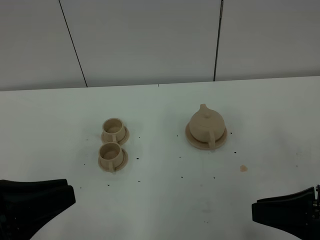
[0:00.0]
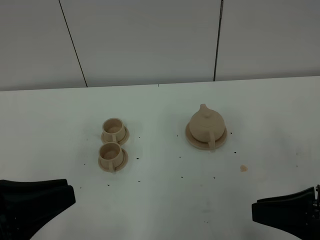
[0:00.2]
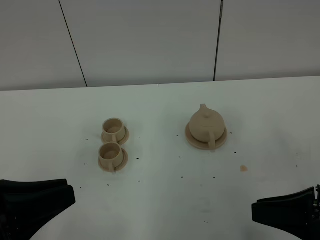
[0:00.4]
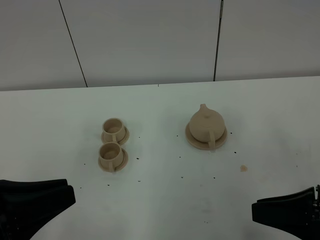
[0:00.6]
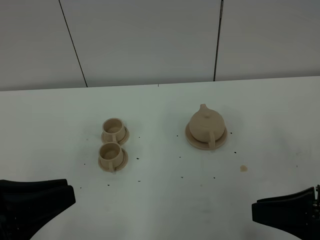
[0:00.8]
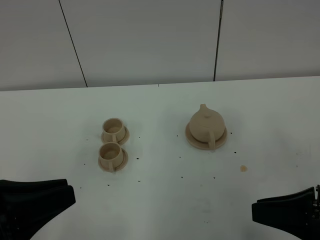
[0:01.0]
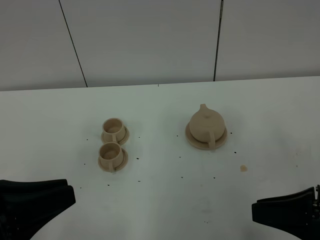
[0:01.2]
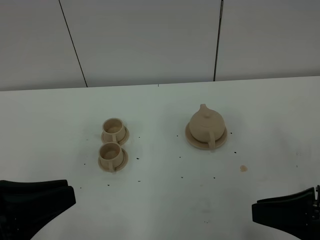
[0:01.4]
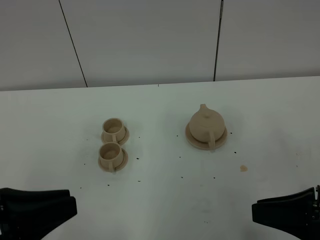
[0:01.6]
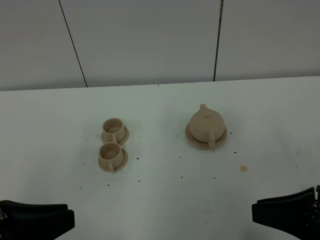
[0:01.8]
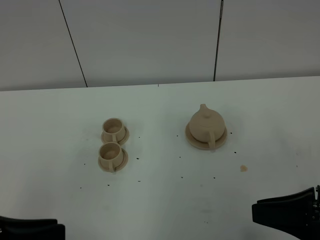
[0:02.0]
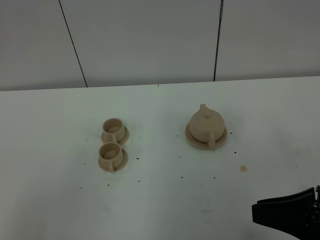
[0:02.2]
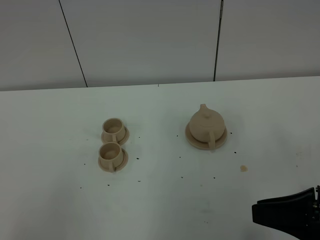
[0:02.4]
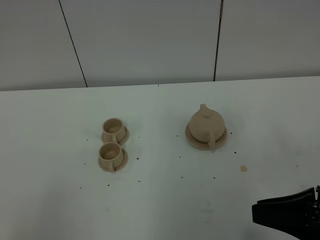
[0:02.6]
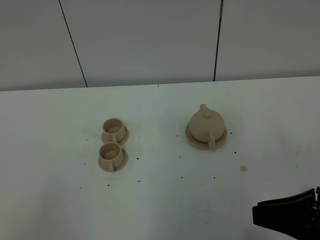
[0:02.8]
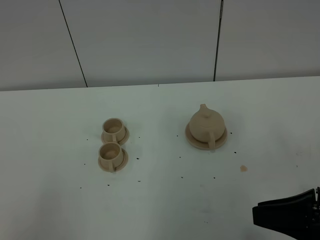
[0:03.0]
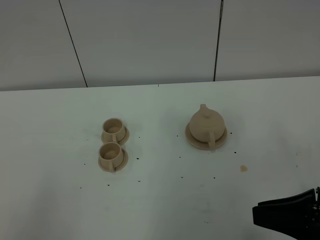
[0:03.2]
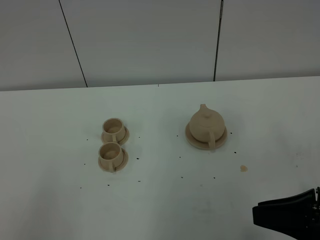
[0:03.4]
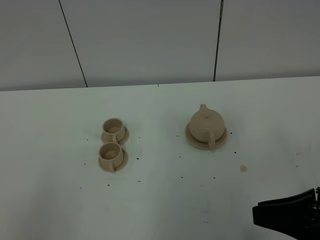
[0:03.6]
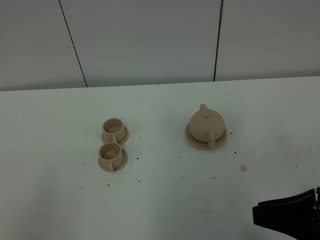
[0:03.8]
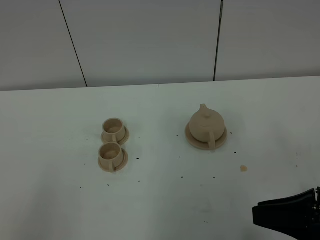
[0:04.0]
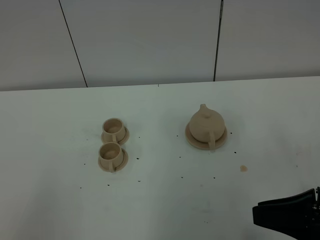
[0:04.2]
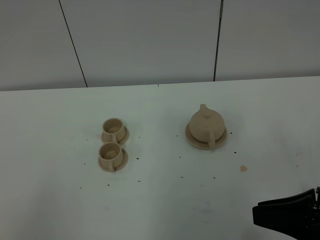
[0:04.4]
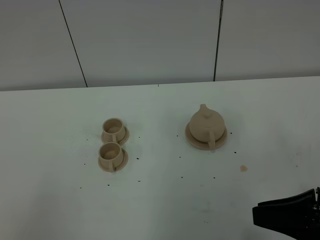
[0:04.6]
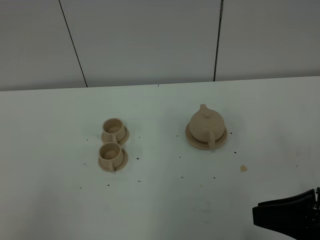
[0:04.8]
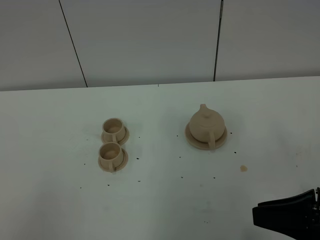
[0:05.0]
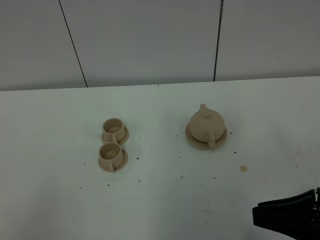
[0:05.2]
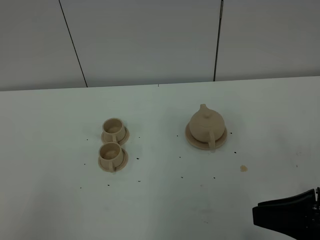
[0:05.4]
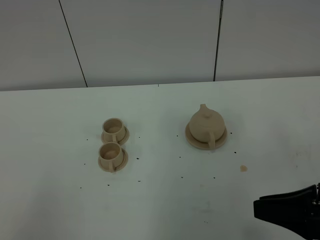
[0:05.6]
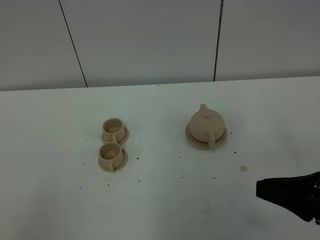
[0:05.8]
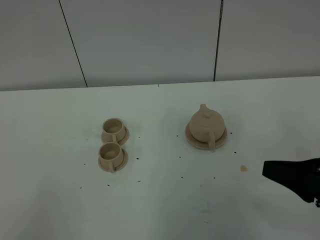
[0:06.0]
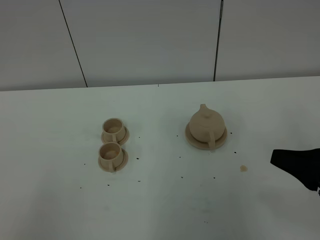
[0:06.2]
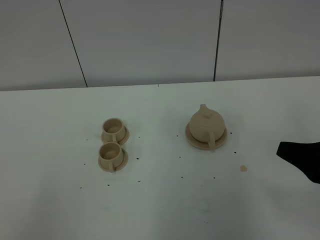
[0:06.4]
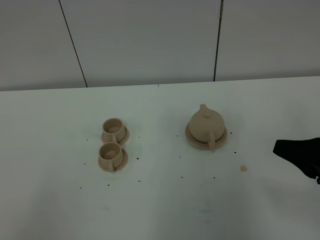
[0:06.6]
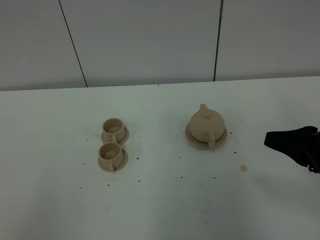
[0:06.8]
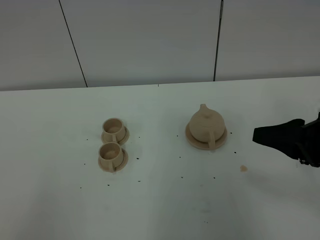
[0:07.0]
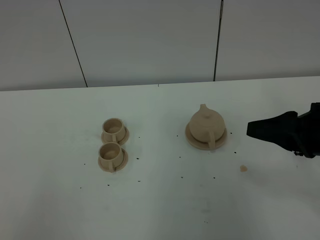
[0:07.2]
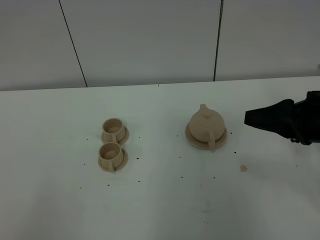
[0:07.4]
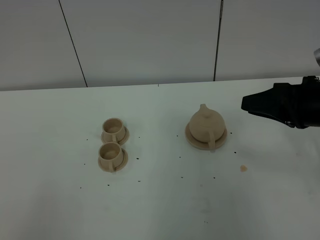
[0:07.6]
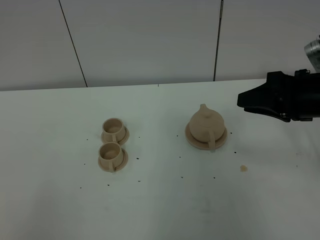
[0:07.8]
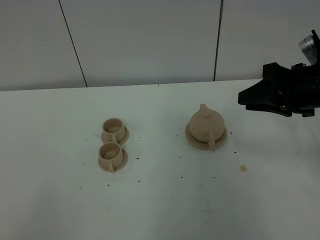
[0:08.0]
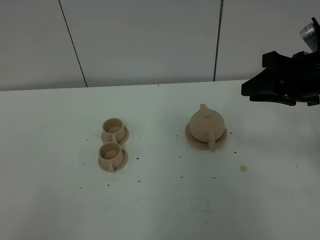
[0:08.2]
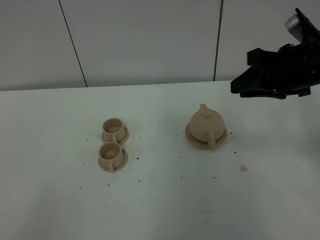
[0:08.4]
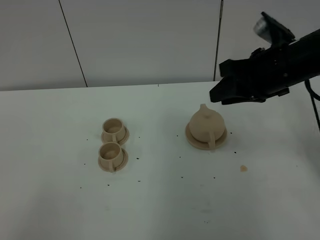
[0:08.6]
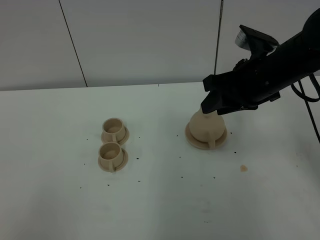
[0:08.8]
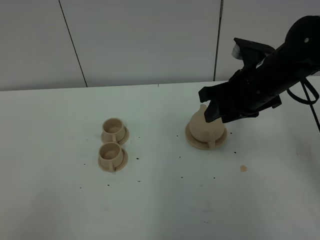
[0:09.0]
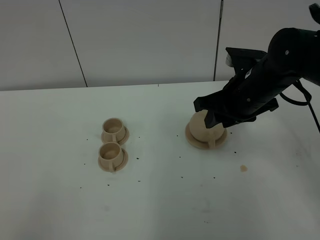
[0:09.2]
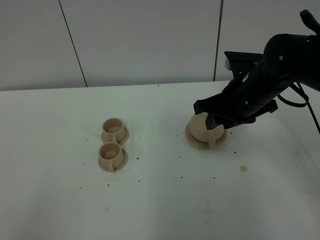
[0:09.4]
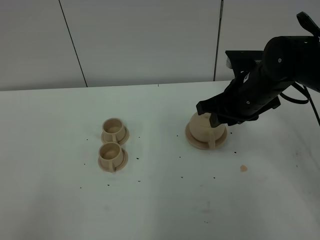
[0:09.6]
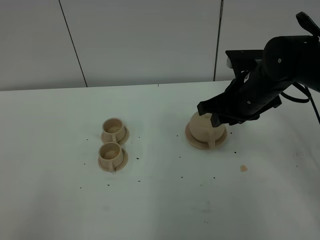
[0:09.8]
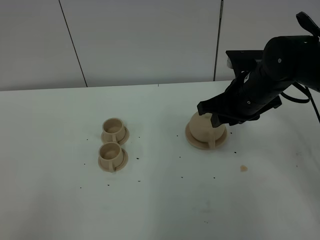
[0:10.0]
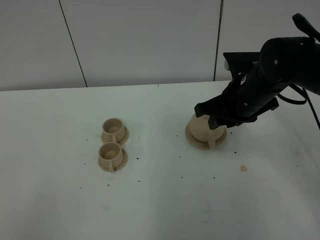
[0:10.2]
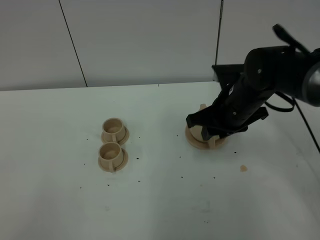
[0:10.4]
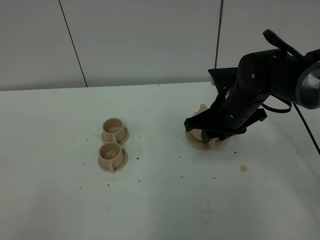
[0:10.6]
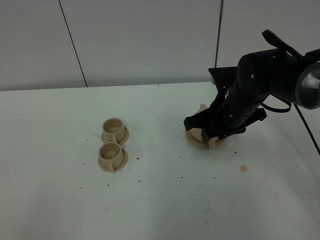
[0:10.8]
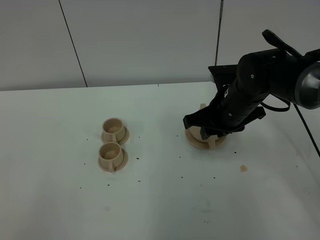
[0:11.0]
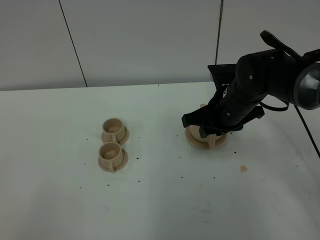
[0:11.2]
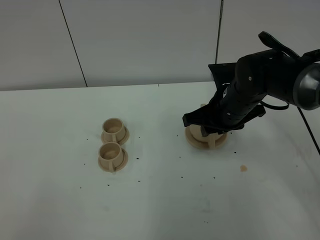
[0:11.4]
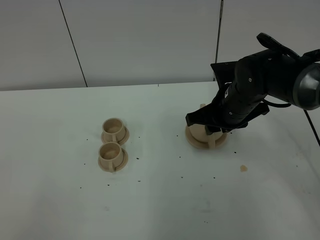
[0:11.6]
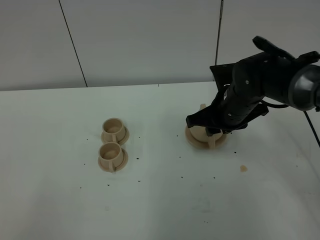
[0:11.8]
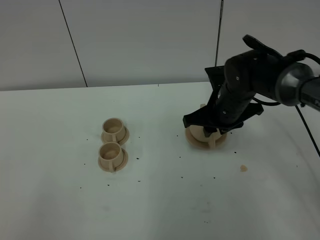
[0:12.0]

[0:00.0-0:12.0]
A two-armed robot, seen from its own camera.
Task of the whole recording: grasp the brown teapot and pour the tea into the two brown teacups one by one, put the brown teapot back in its original place.
0:00.0 to 0:01.6: Neither gripper changes place.
0:01.6 to 0:03.0: The left gripper heads backward, covering roughly 10 cm.
0:04.4 to 0:06.0: There are only small adjustments of the grippers.
0:06.0 to 0:07.6: The right gripper shifts roughly 15 cm forward.
0:07.6 to 0:09.0: The right gripper moves to the left and forward, roughly 10 cm.
0:09.0 to 0:10.4: The right gripper moves downward, approximately 5 cm.
0:10.4 to 0:12.0: The grippers make only small movements.

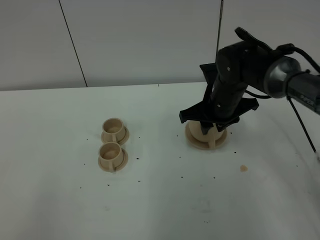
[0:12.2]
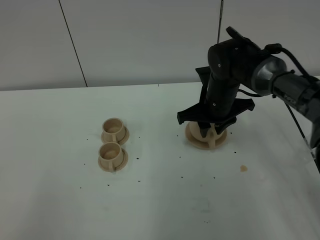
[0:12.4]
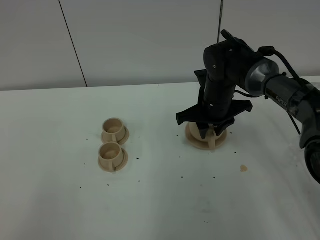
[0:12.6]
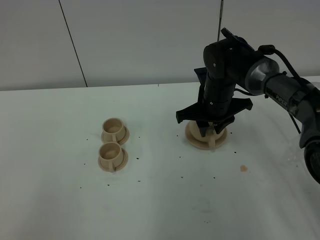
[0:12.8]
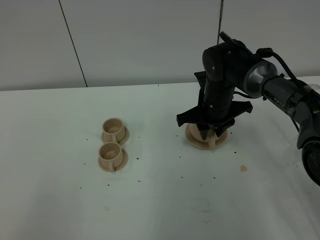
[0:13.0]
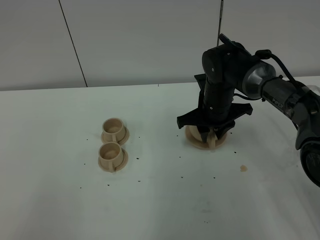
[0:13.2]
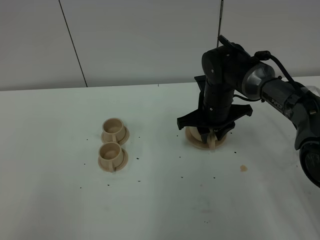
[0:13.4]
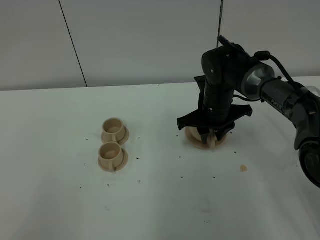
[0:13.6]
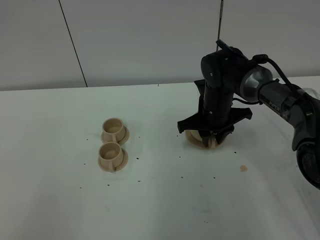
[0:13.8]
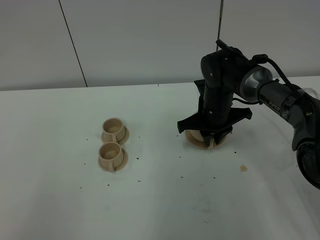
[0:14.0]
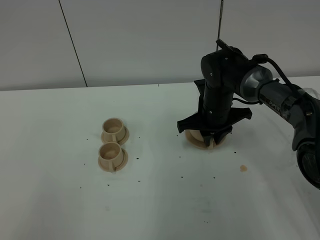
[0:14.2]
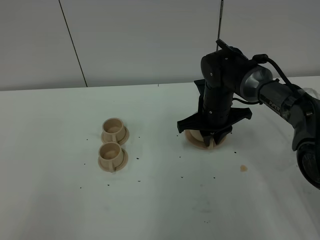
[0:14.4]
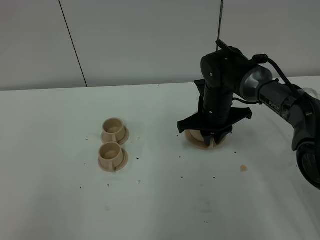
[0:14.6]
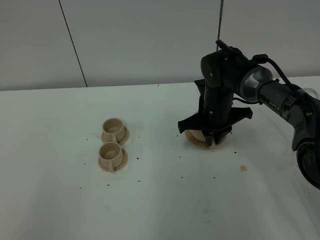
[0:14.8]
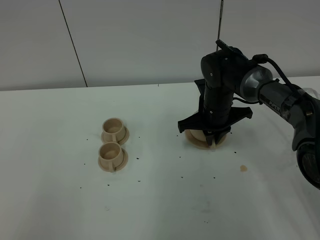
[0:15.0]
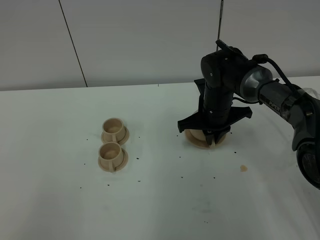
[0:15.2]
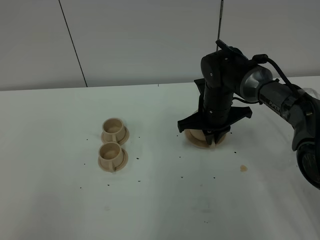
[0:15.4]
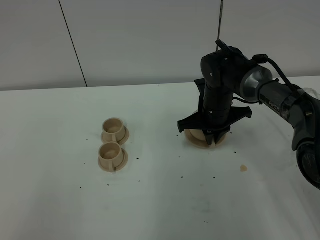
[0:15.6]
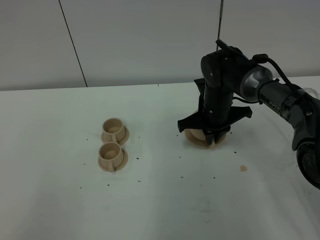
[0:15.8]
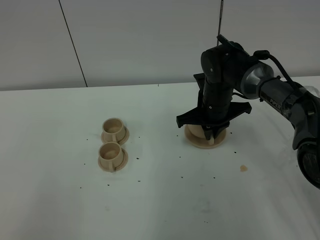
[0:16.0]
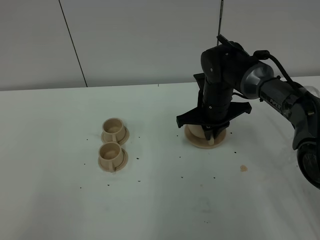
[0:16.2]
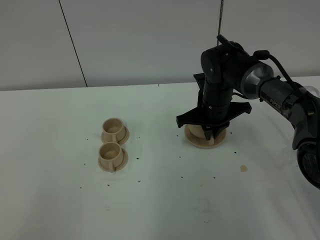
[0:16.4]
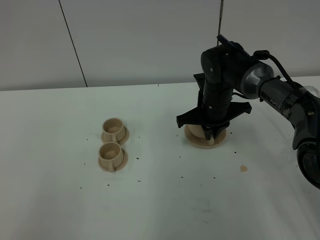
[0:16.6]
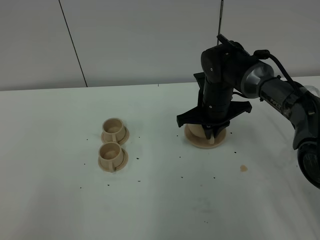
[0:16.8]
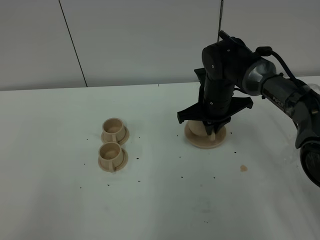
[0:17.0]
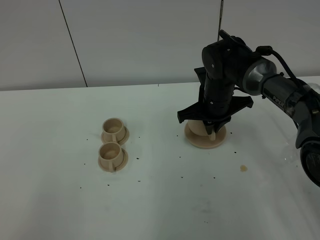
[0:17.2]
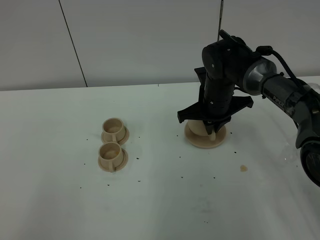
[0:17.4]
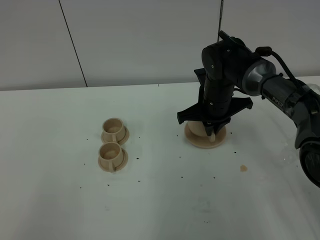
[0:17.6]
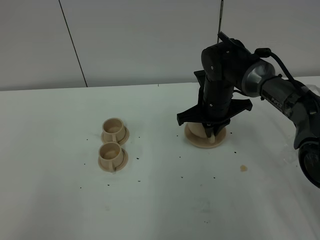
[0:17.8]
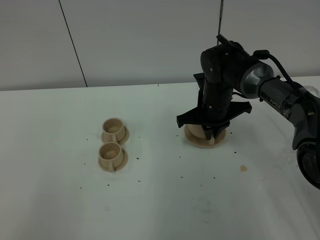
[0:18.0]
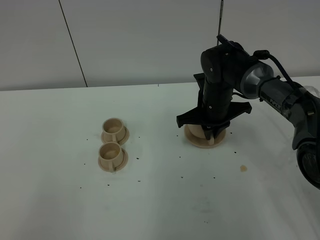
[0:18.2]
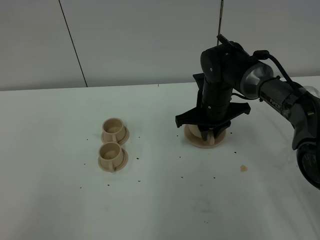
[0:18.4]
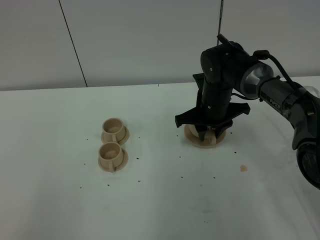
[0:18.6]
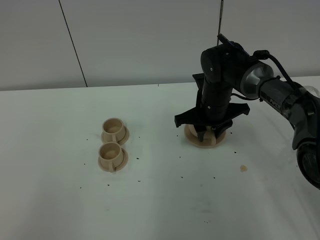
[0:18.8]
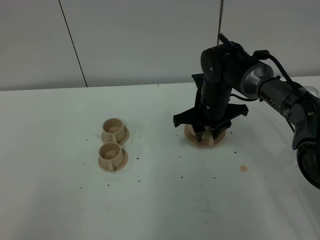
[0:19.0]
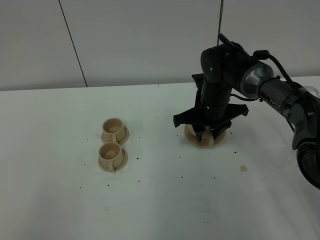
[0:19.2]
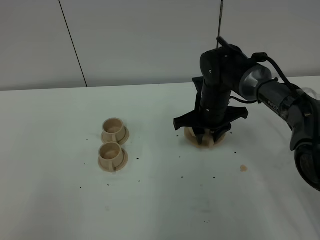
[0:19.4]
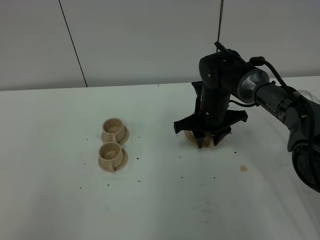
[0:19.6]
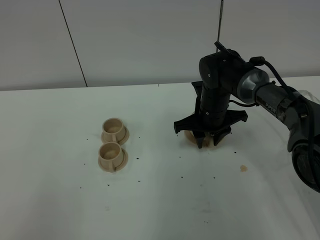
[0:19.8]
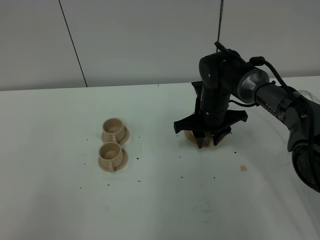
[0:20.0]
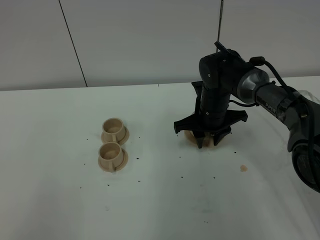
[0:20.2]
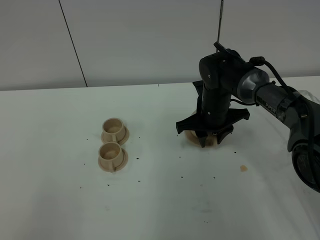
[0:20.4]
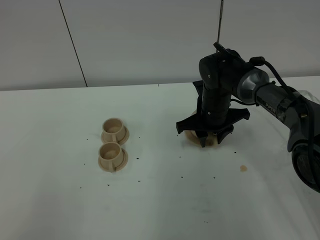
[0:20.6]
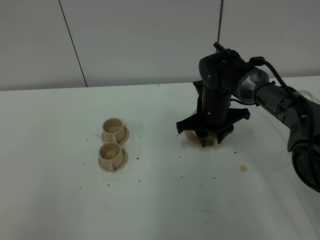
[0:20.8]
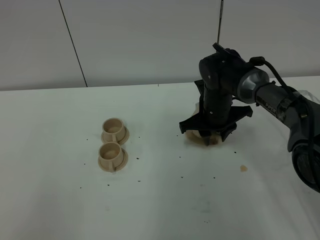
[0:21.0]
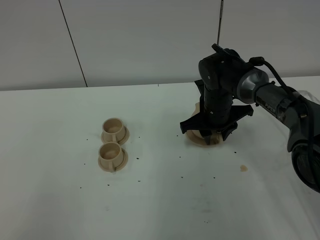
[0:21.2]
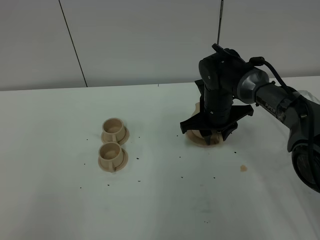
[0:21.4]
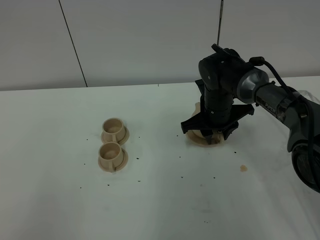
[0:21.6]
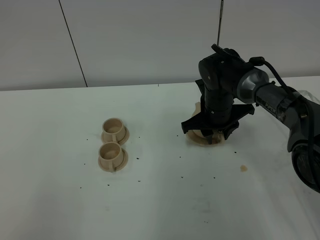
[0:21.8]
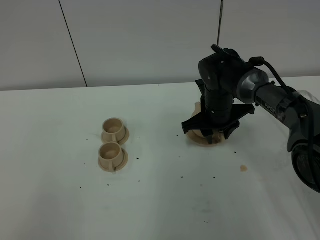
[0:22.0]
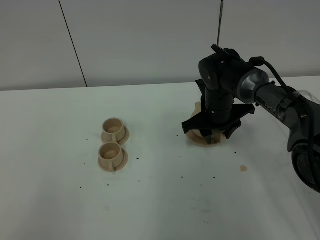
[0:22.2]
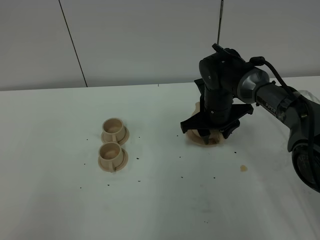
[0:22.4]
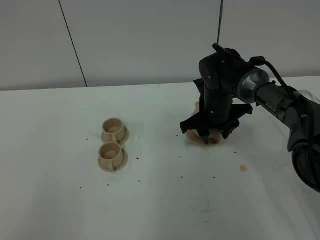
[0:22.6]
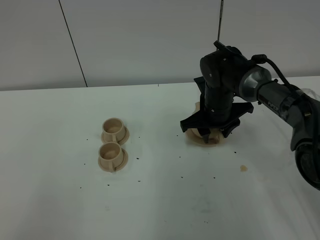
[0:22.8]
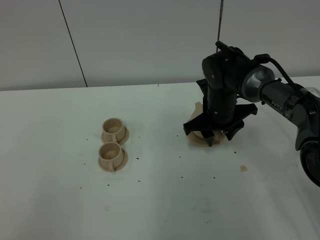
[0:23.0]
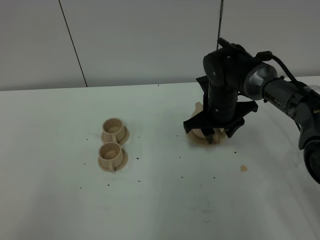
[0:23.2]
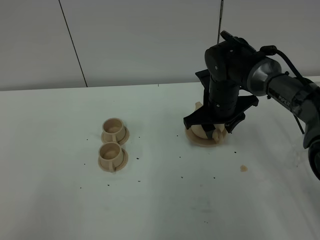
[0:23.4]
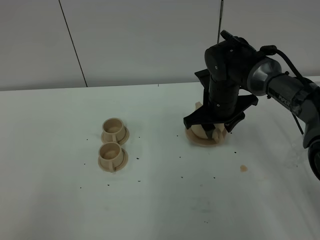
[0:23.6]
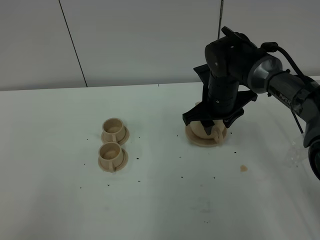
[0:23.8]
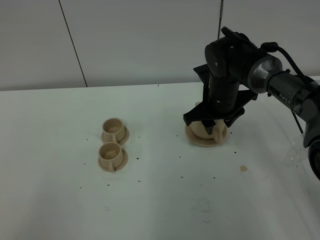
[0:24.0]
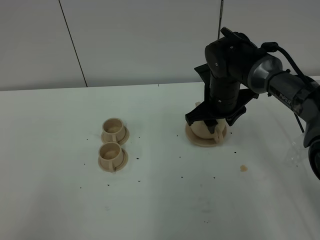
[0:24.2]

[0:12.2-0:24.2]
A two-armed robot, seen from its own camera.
Task of the whole recording: grasp the brown teapot and pour the tea into the two brown teacups one by one, put the brown teapot back in its original place.
0:12.2 to 0:13.8: There are only small adjustments of the grippers.
0:15.2 to 0:16.6: Both grippers stay put.
0:16.6 to 0:18.2: Both grippers stay about where they are.
0:18.2 to 0:19.8: The right gripper opens.
0:19.8 to 0:21.2: The grippers move only a little.
0:21.2 to 0:22.6: Both grippers stay put.
0:22.6 to 0:24.2: The grippers stay close to where they were, moving slightly.
